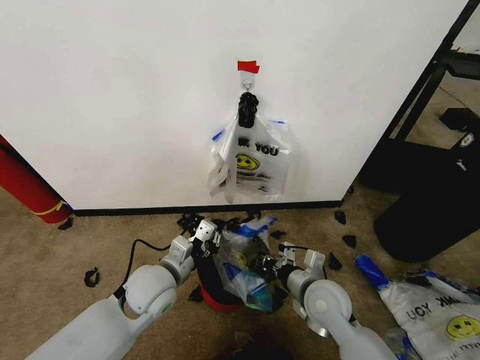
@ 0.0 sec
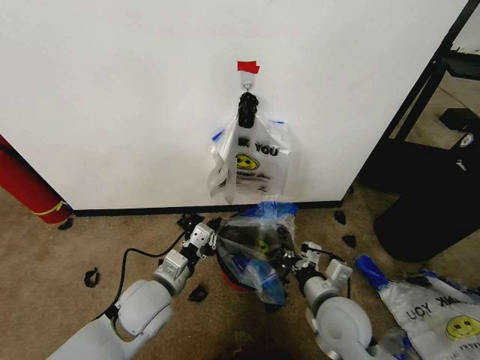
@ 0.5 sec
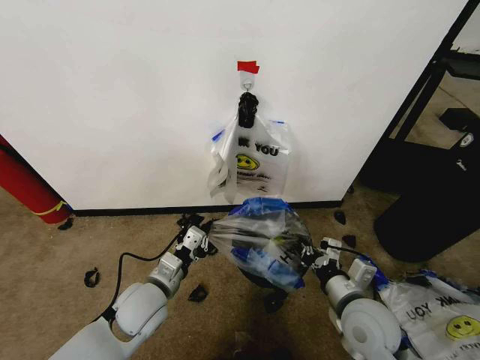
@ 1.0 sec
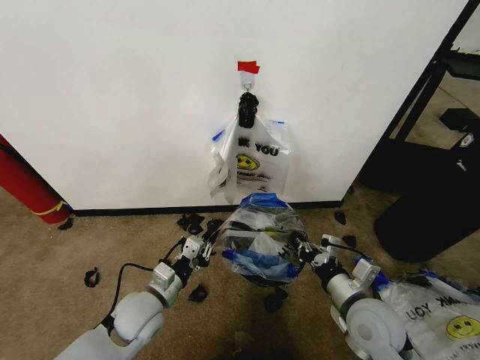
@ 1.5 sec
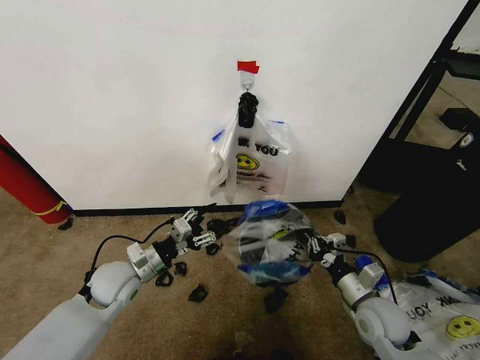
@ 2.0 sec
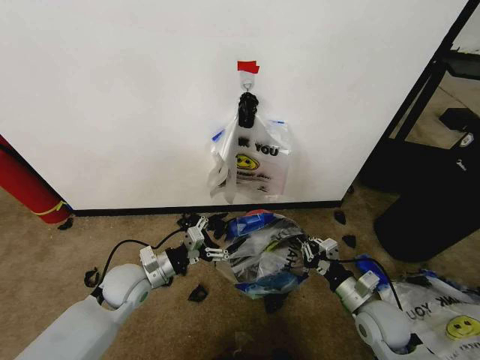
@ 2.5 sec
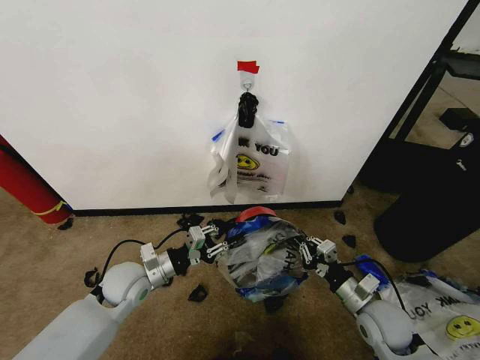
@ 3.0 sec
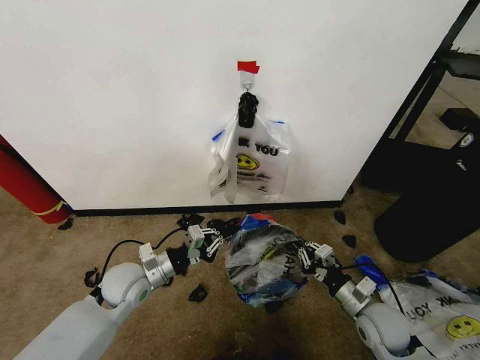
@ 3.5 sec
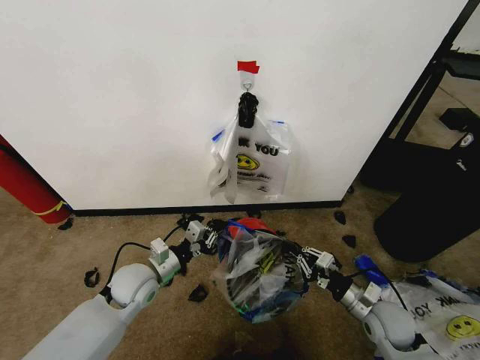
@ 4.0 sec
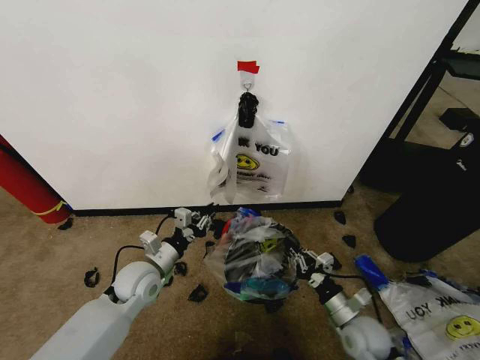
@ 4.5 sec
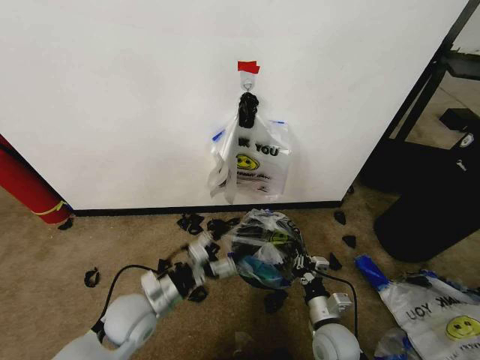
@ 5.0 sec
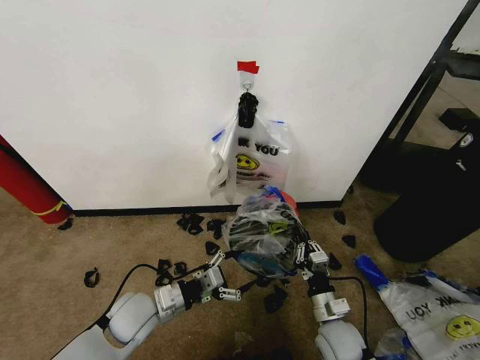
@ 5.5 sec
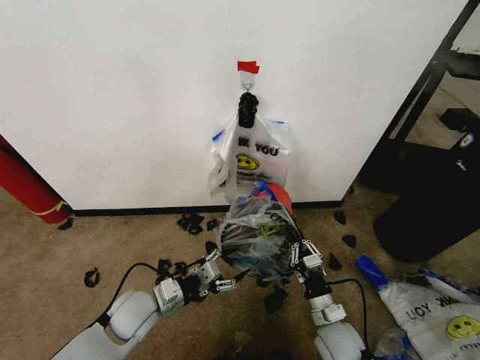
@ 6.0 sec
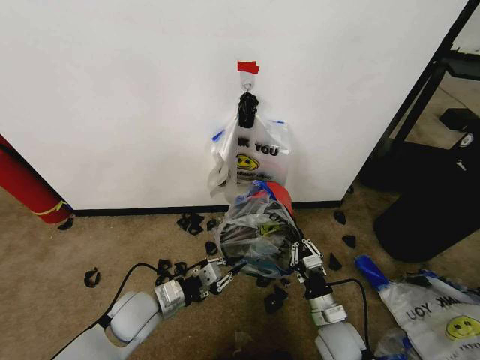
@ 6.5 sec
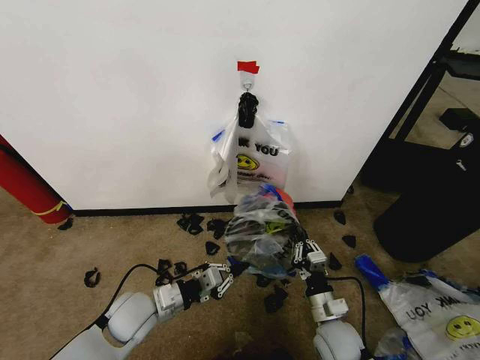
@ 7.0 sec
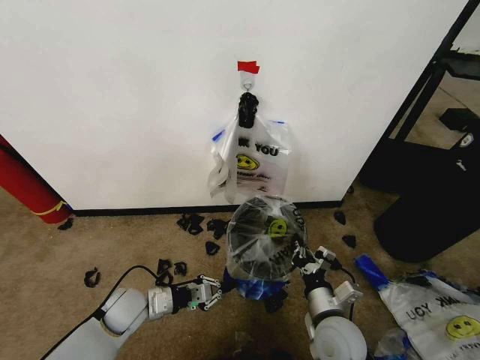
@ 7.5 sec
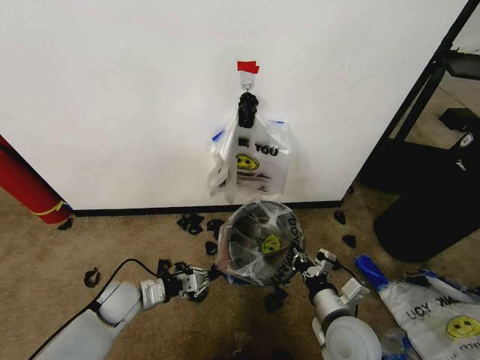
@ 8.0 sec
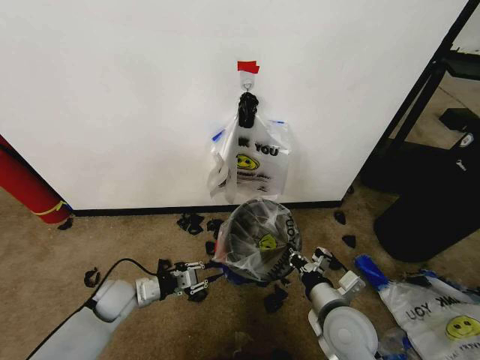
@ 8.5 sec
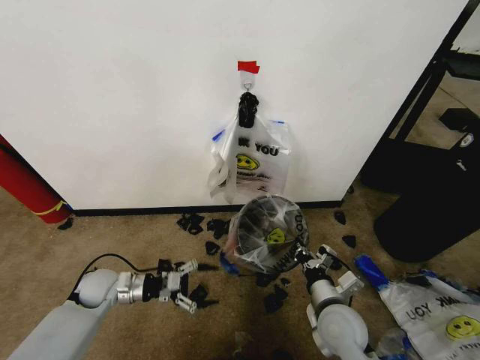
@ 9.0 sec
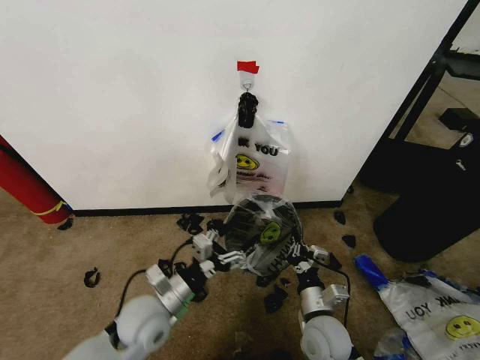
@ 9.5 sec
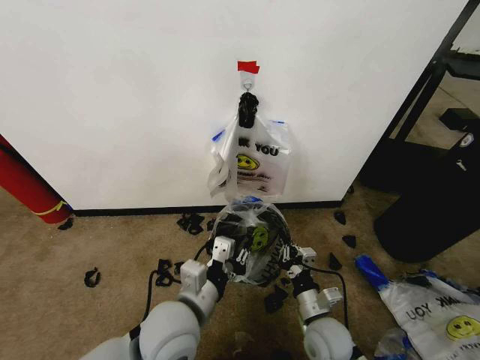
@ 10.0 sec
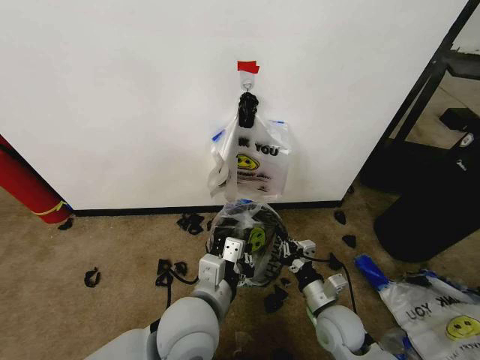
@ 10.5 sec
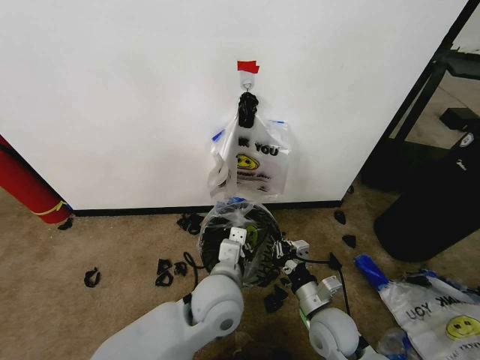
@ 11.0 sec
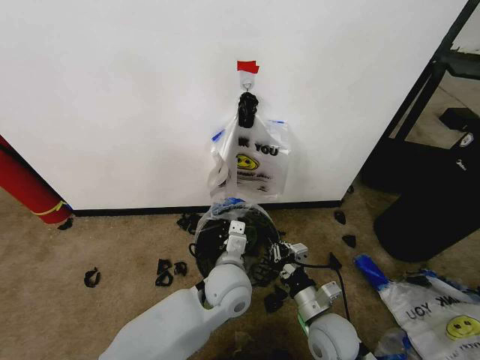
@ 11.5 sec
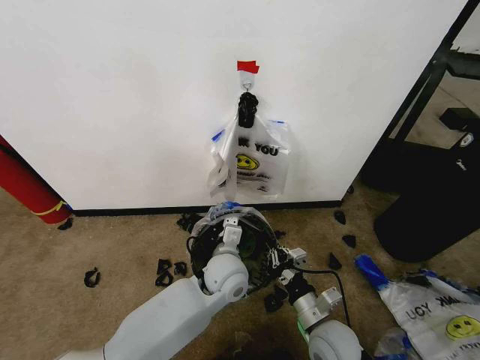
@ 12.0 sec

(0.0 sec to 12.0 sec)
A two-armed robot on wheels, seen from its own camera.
Task of the whole recording: Pick up the garbage bag from the wall and place it over the trash bin.
0.0 sec - 2.0 sec: The left gripper is displaced to the left by some 10 cm, and opens its fingers. The right gripper moves to the right, about 10 cm.
2.0 sec - 4.0 sec: The left gripper closes its fingers, while the right gripper moves roughly 5 cm.
4.0 sec - 6.0 sec: The left gripper moves backward, roughly 5 cm, and opens up; the right gripper goes roughly 10 cm to the left.
6.0 sec - 8.0 sec: The left gripper is displaced to the left by roughly 5 cm, and closes its fingers. The right gripper travels upward by about 10 cm.
8.0 sec - 10.0 sec: The right gripper heads downward, covering some 5 cm; the left gripper shifts roughly 25 cm to the right, upward and backward, and opens, then closes once more.
10.0 sec - 12.0 sec: The left gripper is displaced forward, to the right and downward by approximately 15 cm.

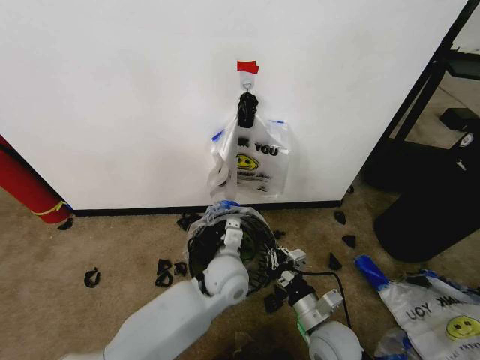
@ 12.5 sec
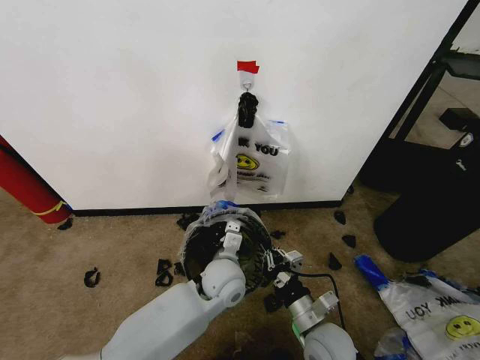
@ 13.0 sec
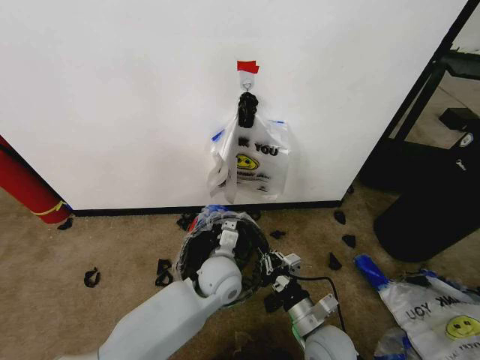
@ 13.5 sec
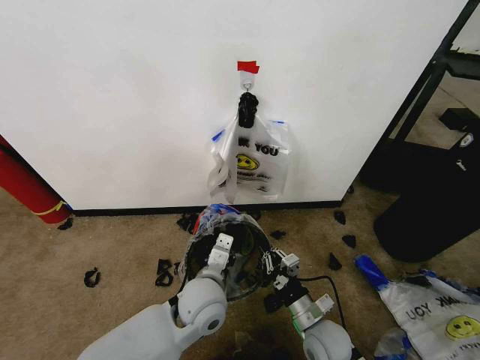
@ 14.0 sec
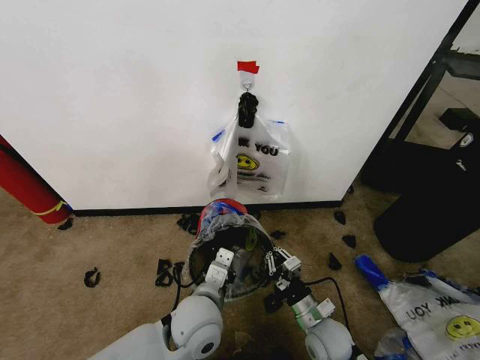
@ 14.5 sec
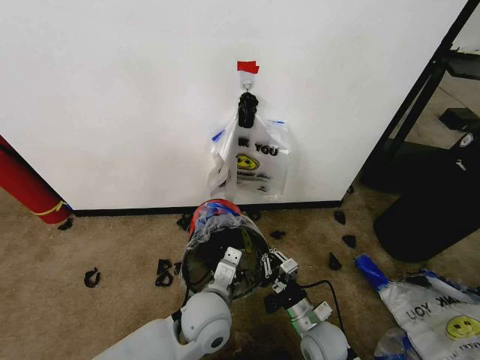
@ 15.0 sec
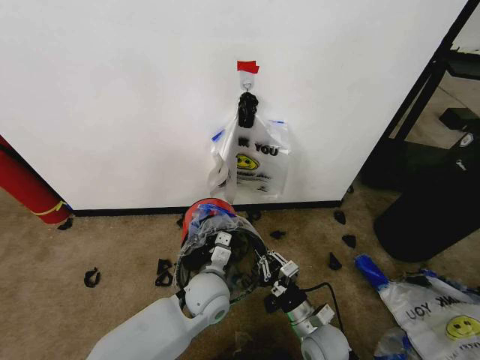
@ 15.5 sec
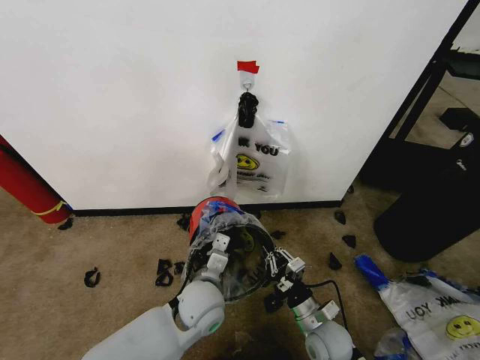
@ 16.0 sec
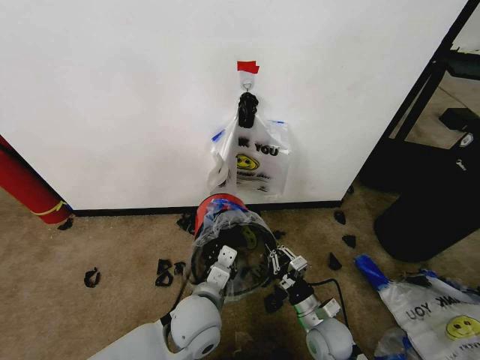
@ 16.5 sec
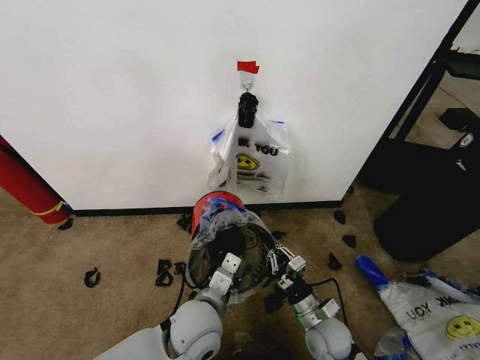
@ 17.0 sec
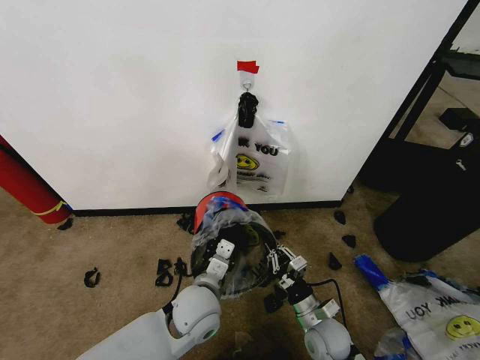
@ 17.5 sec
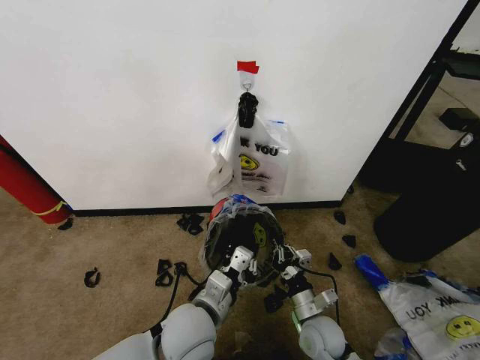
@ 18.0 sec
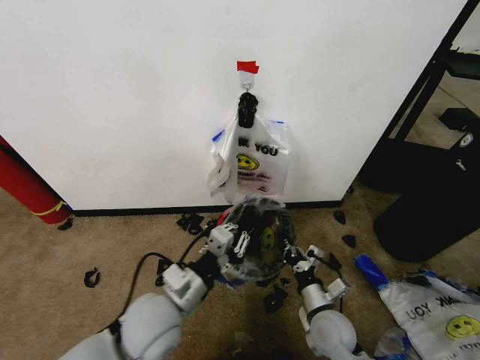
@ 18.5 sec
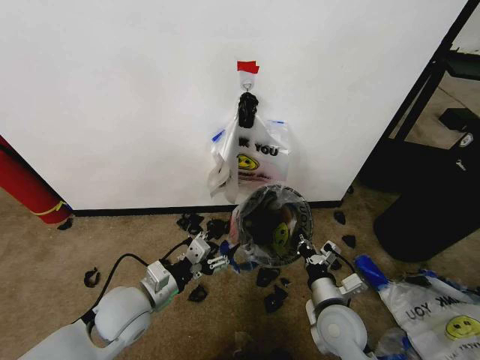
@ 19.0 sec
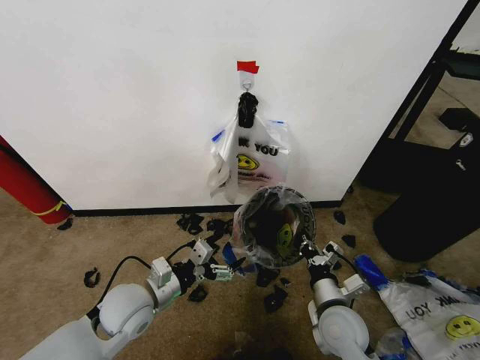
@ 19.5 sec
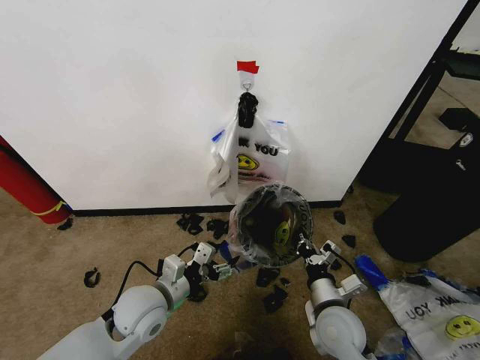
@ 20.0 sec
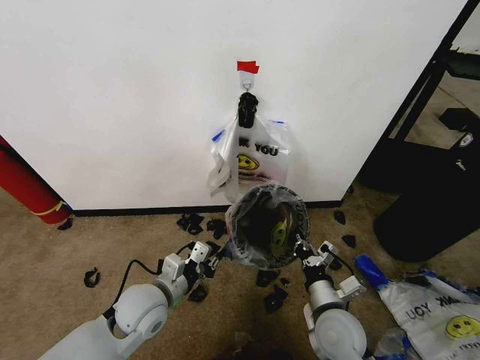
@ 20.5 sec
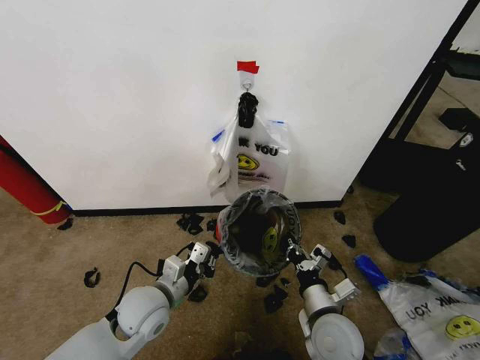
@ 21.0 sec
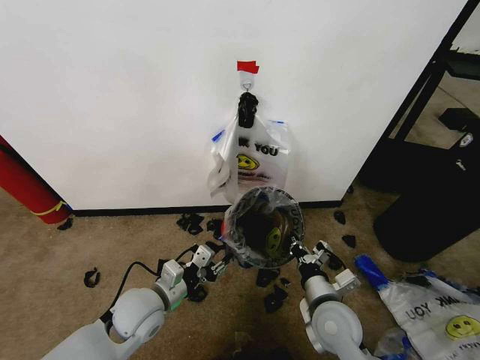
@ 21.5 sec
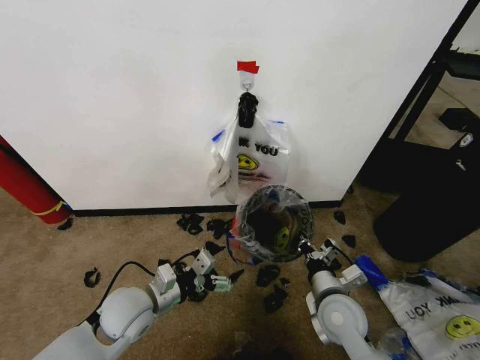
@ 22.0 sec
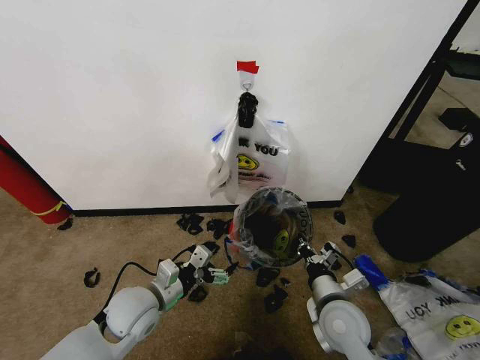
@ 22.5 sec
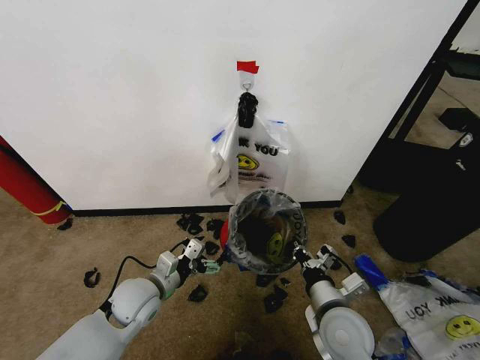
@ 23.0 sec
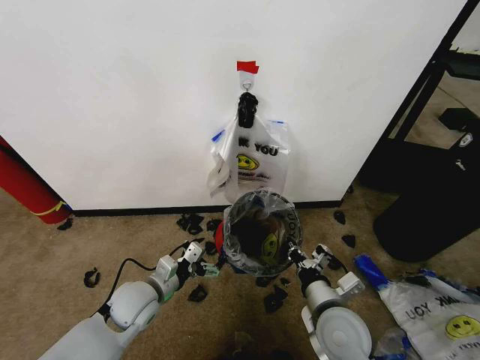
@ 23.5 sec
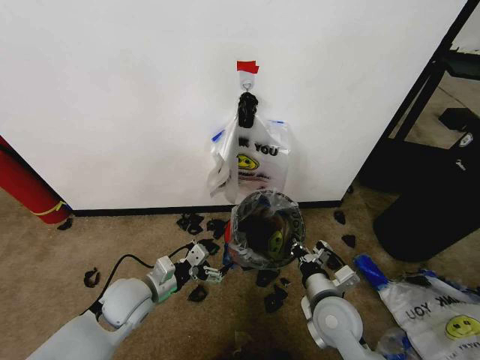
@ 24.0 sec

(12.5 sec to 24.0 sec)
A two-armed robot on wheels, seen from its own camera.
Task of the whole recording: Pick up the garbage bag from the wall and place it over the trash bin.
12.5 sec - 14.5 sec: The right gripper moves downward, about 5 cm. The left gripper travels backward and to the left by approximately 10 cm.
16.5 sec - 18.5 sec: The left gripper moves to the left and upward, roughly 10 cm.
18.5 sec - 20.0 sec: The right gripper travels upward by some 5 cm, while the left gripper changes place by roughly 5 cm, and opens its fingers.
20.0 sec - 22.0 sec: The left gripper closes and opens again.
22.0 sec - 24.0 sec: The grippers make only small movements.

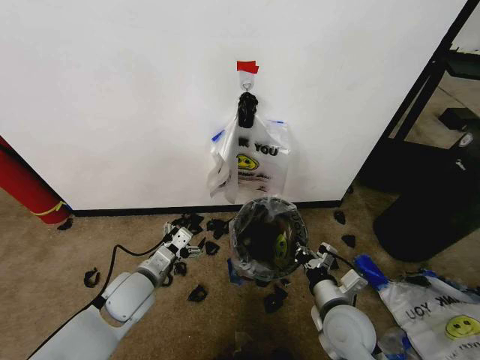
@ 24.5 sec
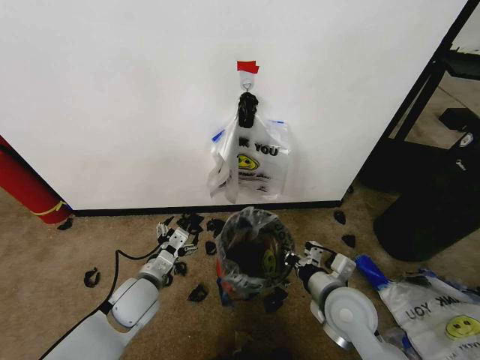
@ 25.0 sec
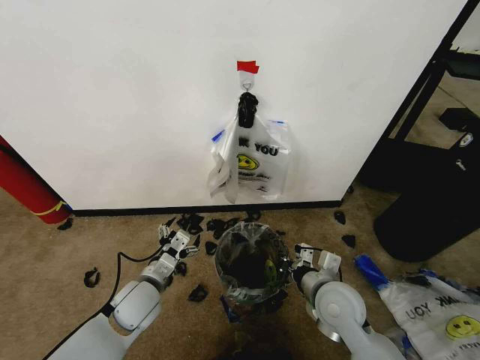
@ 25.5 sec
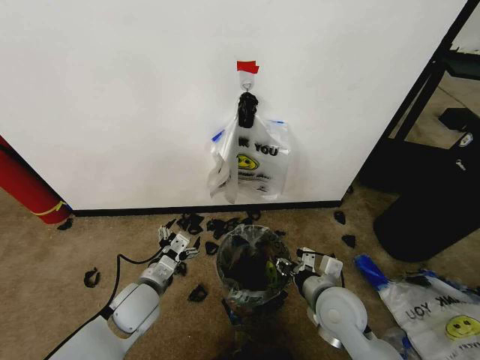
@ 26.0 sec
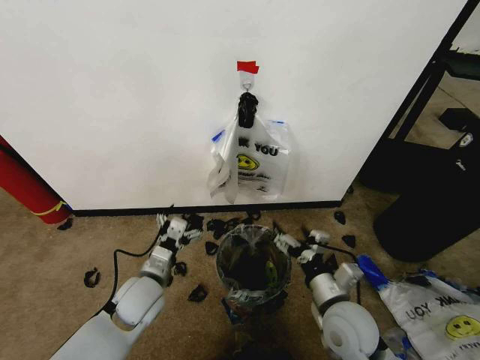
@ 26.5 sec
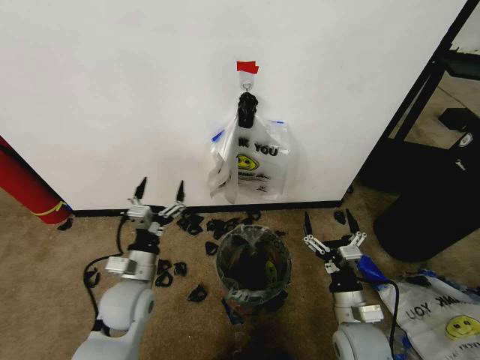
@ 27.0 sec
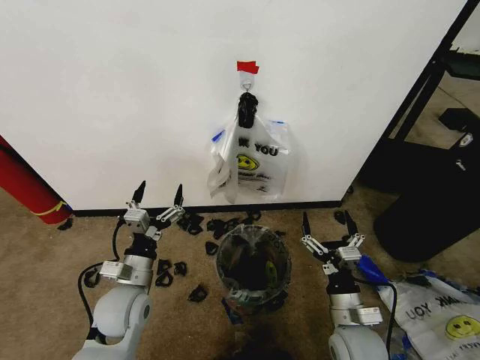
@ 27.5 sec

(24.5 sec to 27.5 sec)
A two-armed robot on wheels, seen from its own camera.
Task of the whole recording: Pick up the garbage bag from the wall and place it over the trash bin.
24.5 sec - 26.0 sec: The right gripper opens up.
26.0 sec - 27.5 sec: The right gripper heads backward, covering roughly 5 cm, and opens.
